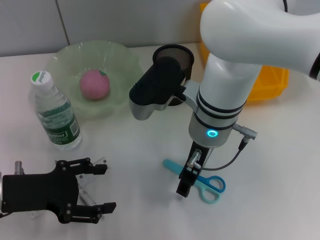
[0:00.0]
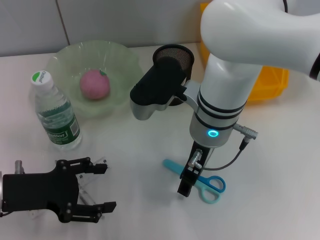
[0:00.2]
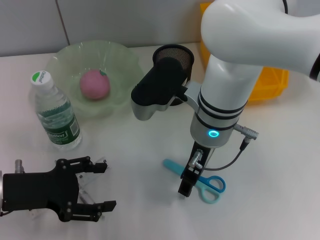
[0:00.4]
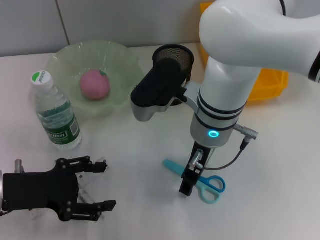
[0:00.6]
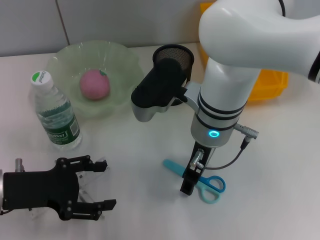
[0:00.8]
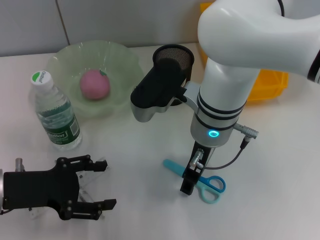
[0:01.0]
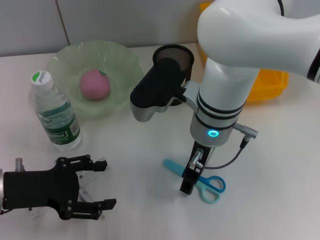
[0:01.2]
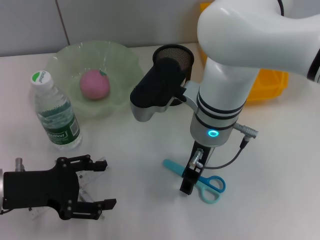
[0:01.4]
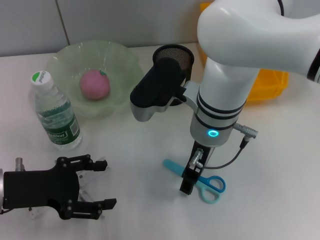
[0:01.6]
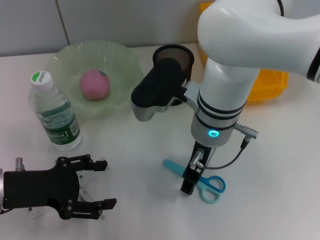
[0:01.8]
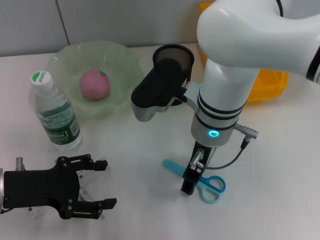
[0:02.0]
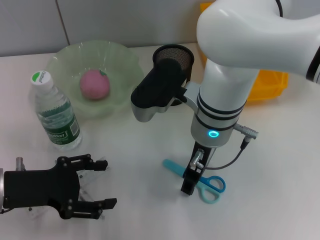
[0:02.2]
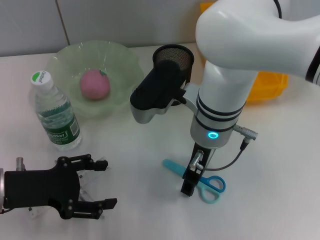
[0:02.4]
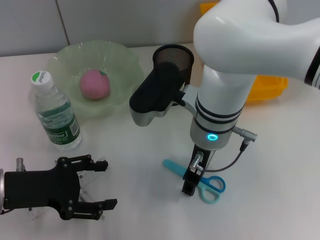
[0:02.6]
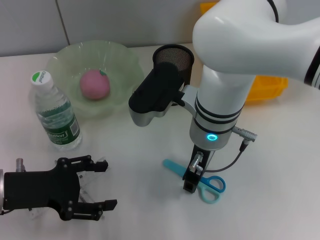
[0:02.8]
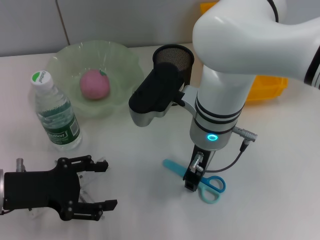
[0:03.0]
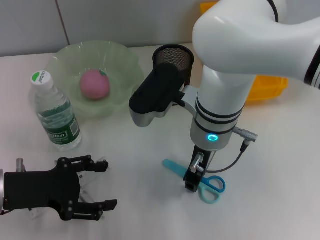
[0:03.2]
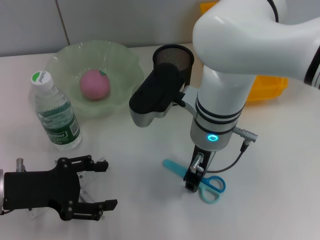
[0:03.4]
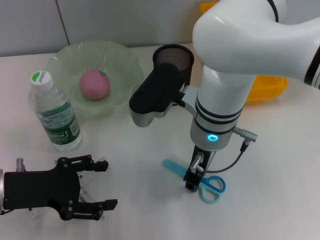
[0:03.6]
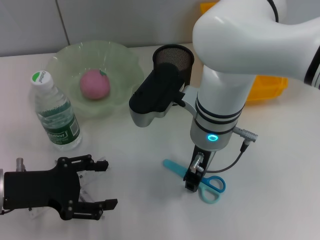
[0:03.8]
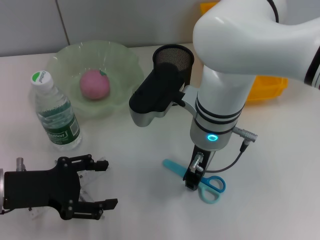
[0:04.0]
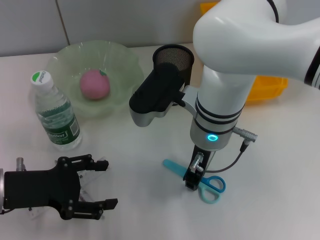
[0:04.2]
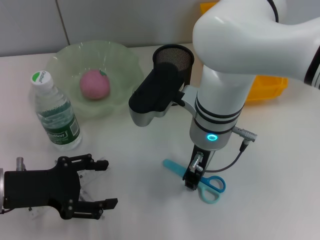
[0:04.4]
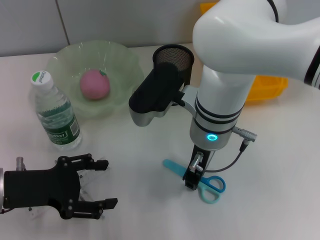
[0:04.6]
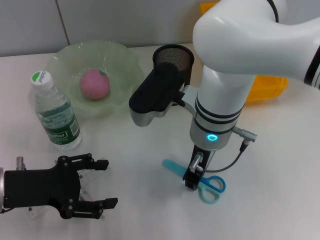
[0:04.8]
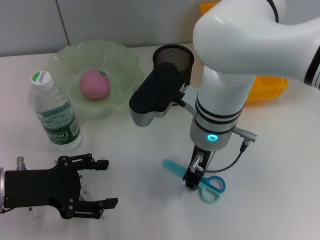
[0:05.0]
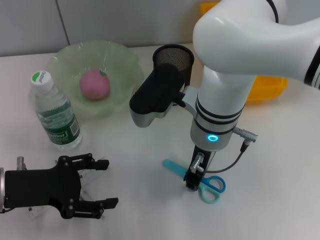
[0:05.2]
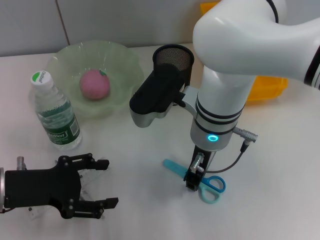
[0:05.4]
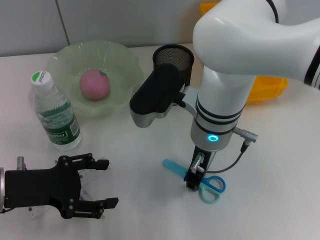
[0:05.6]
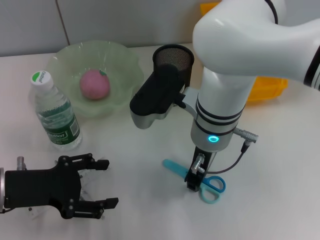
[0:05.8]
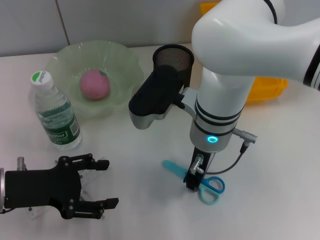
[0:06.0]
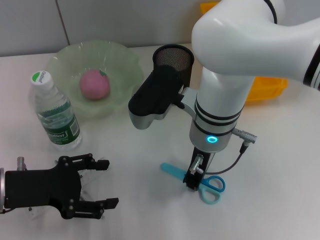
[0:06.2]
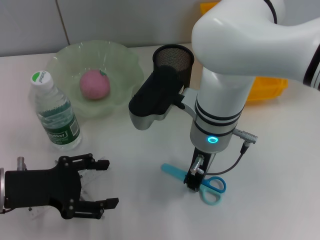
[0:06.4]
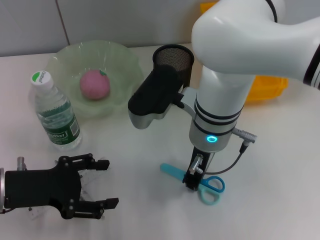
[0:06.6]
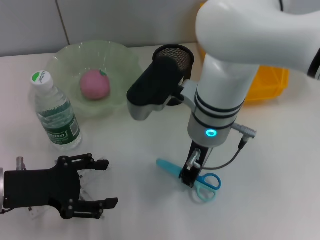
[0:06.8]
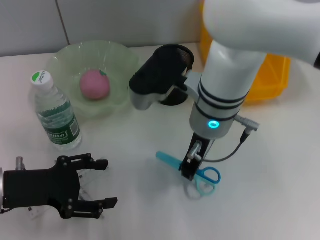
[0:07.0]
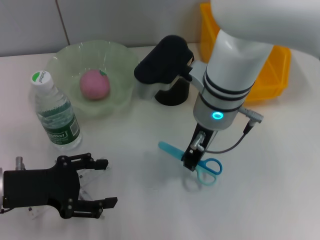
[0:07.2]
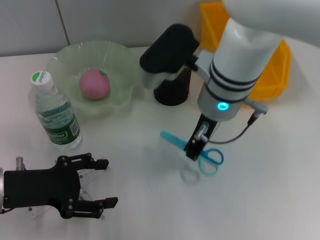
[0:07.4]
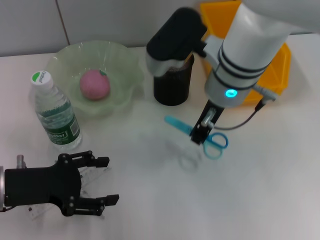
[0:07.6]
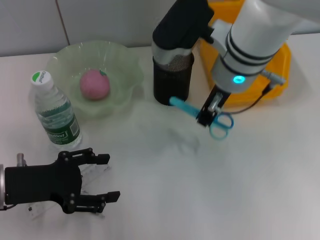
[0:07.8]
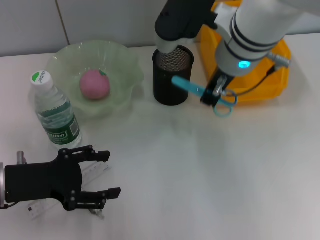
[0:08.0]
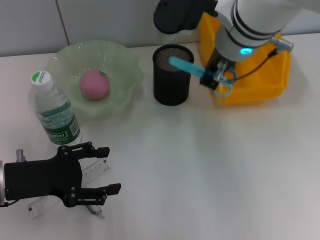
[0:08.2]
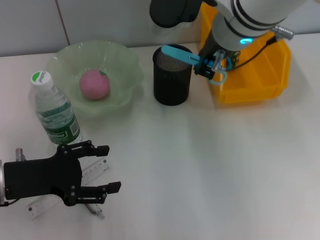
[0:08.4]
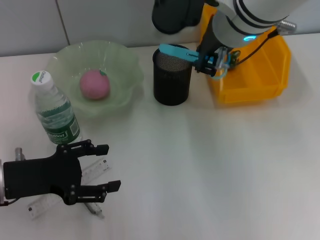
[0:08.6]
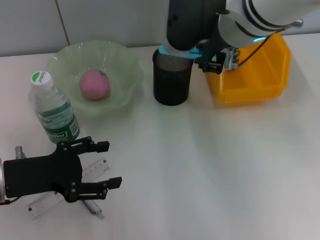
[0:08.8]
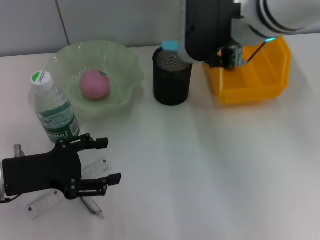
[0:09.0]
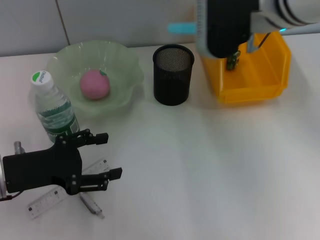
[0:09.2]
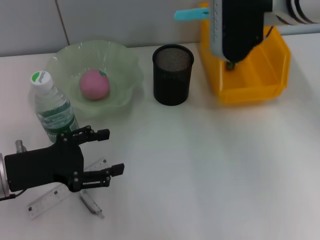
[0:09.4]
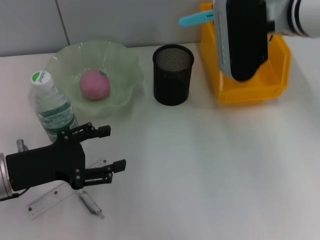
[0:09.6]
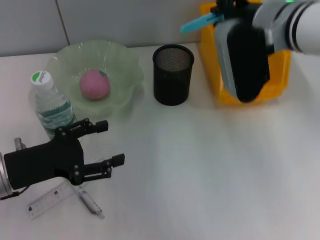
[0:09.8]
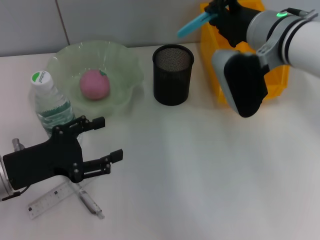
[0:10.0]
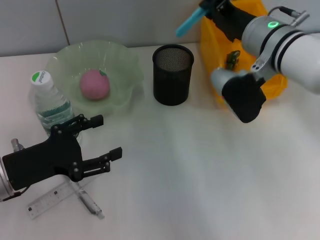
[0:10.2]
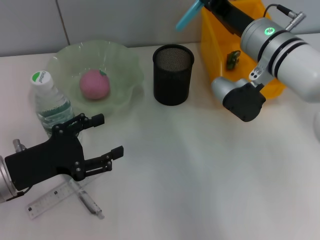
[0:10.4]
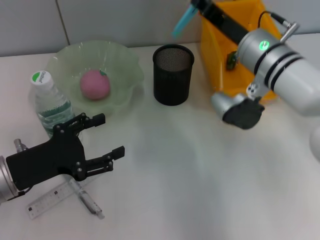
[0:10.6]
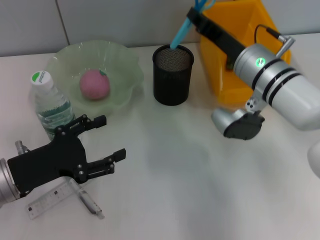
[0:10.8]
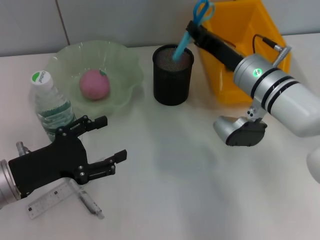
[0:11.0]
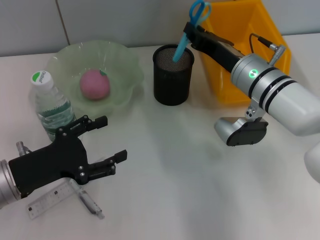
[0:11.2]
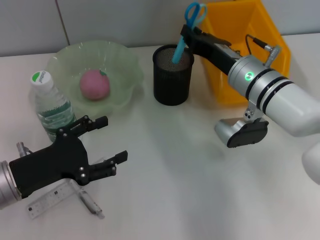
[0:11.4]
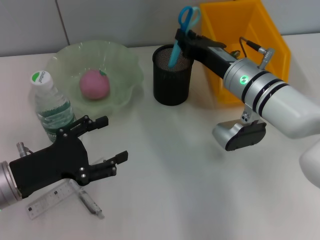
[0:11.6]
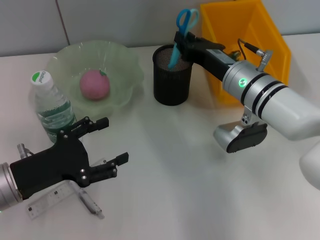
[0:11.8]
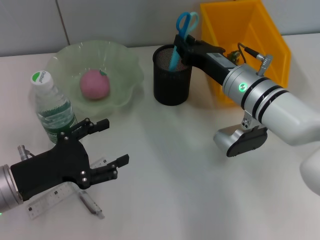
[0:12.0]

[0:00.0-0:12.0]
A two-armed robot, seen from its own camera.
Step, 0:00.0 to 0:06.4: Grab the blue scissors with the right hand.
0:00.0 to 0:06.0: The two grippers keep their place.
0:06.0 to 0:07.6: The right gripper travels upward by about 5 cm.
0:07.6 to 0:09.0: The right gripper goes about 5 cm upward.
0:09.0 to 0:10.4: The right gripper moves downward and to the right, some 10 cm.
0:10.4 to 0:12.0: The right gripper shifts approximately 5 cm downward.

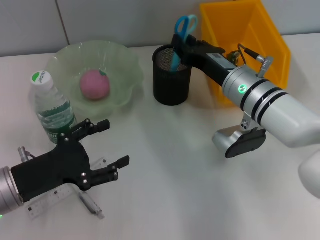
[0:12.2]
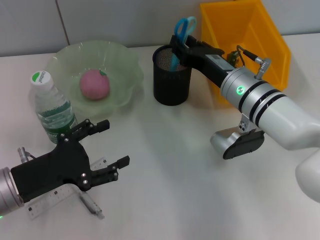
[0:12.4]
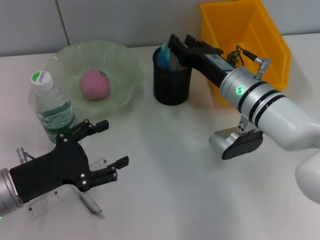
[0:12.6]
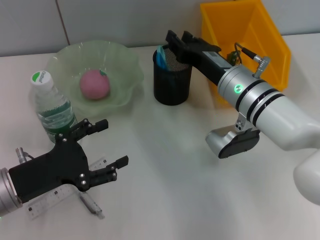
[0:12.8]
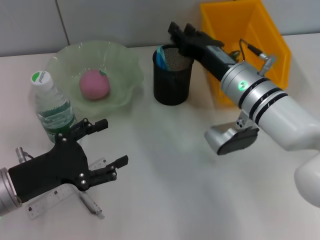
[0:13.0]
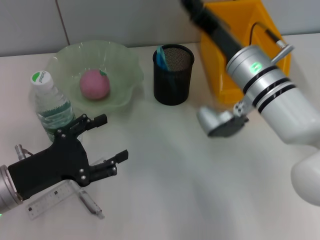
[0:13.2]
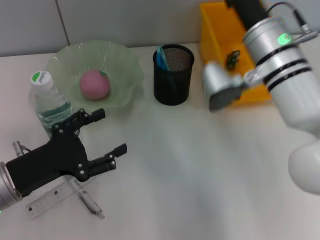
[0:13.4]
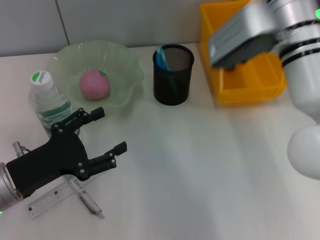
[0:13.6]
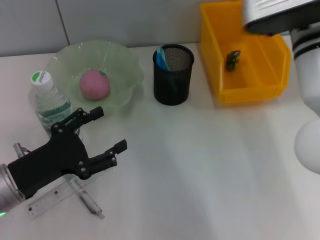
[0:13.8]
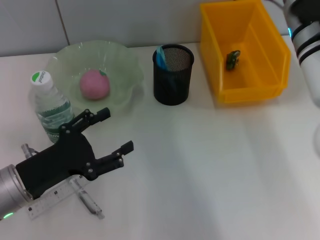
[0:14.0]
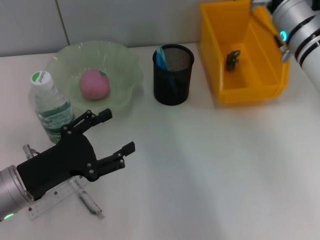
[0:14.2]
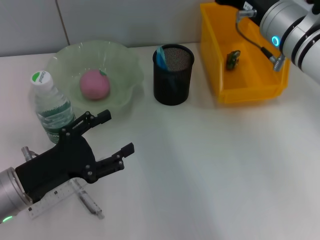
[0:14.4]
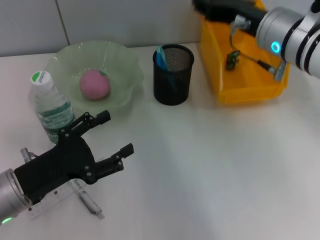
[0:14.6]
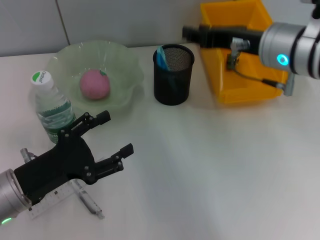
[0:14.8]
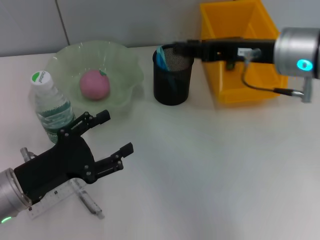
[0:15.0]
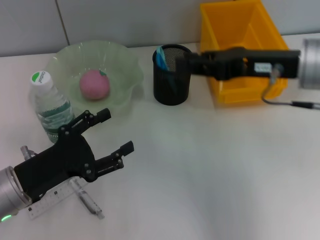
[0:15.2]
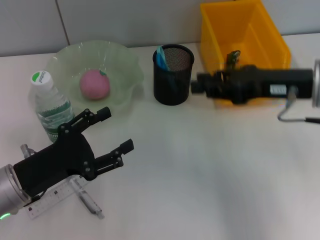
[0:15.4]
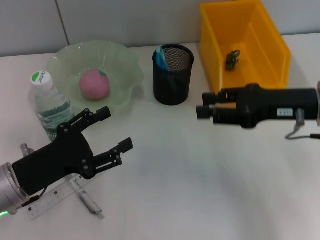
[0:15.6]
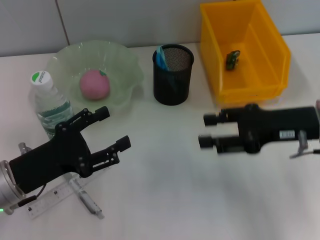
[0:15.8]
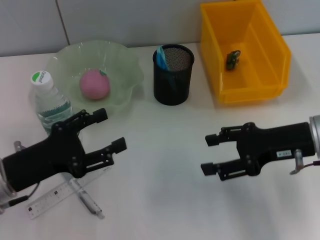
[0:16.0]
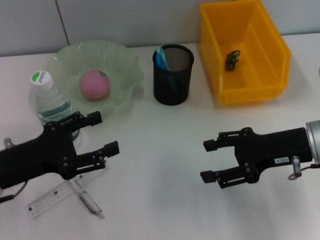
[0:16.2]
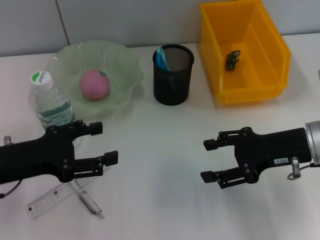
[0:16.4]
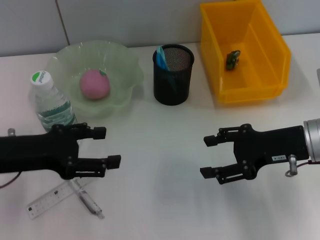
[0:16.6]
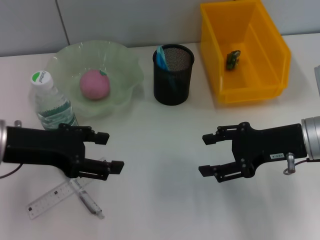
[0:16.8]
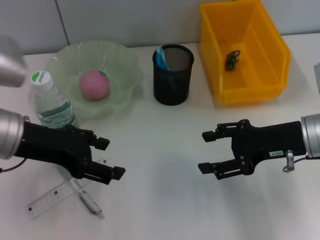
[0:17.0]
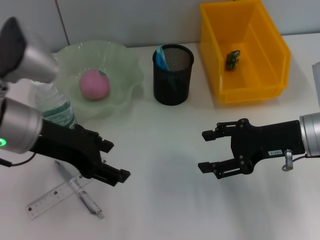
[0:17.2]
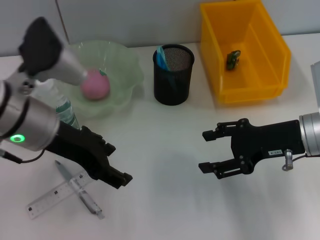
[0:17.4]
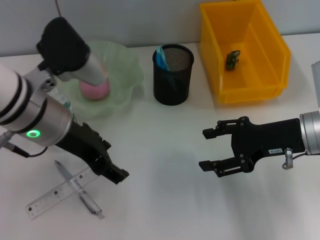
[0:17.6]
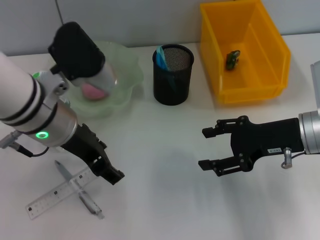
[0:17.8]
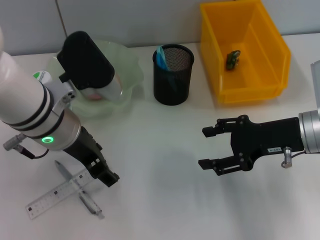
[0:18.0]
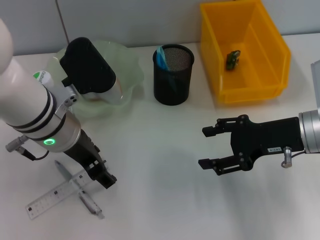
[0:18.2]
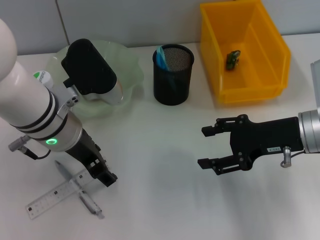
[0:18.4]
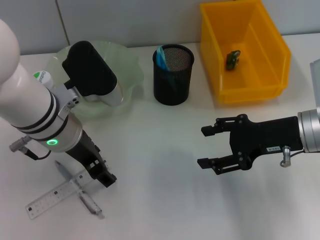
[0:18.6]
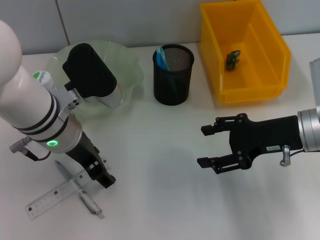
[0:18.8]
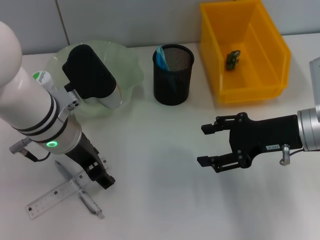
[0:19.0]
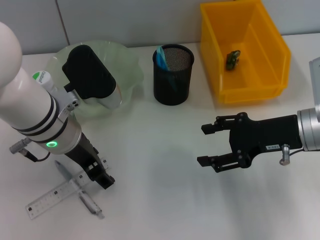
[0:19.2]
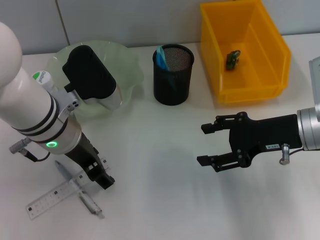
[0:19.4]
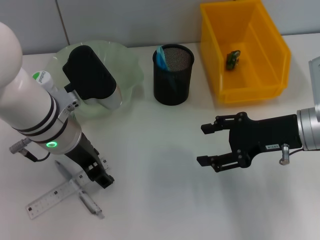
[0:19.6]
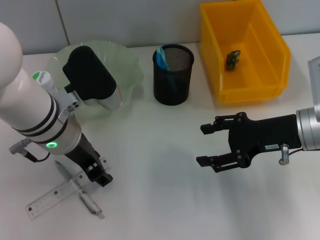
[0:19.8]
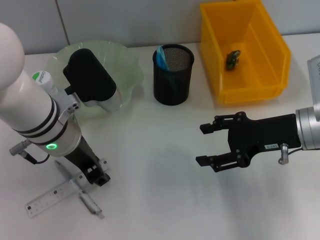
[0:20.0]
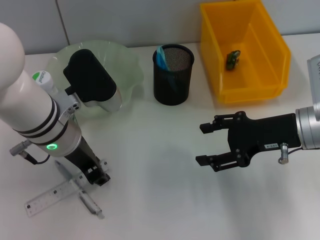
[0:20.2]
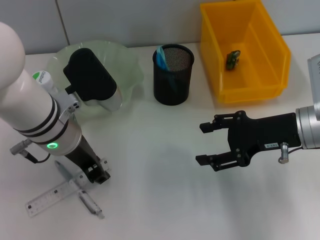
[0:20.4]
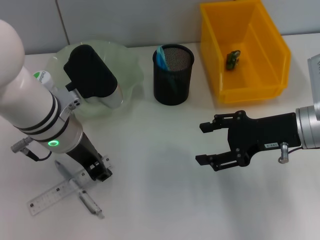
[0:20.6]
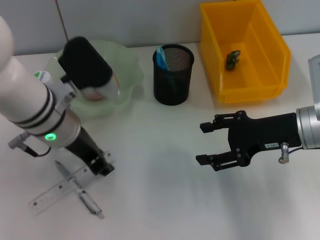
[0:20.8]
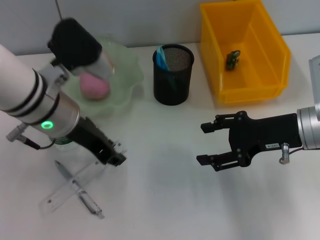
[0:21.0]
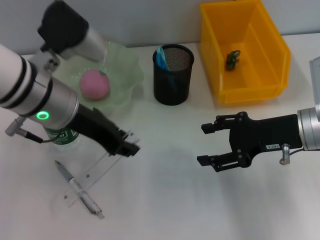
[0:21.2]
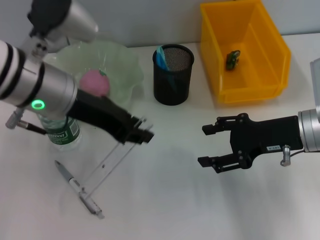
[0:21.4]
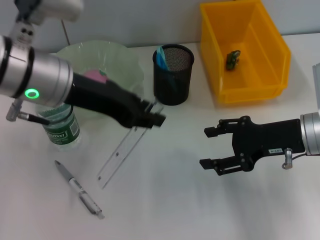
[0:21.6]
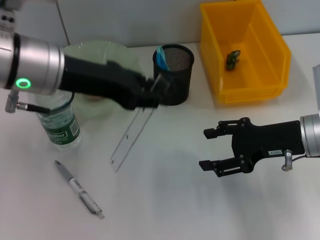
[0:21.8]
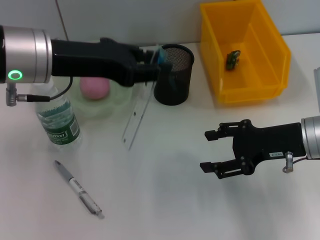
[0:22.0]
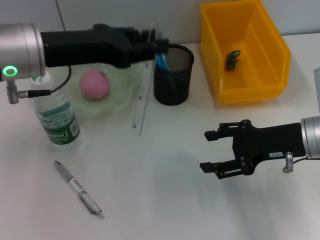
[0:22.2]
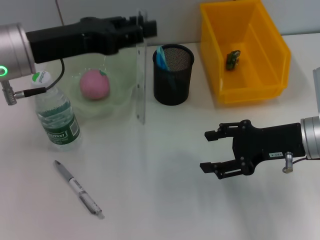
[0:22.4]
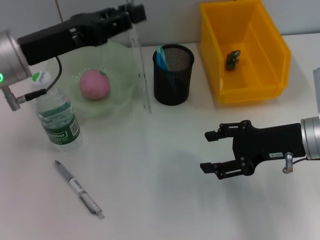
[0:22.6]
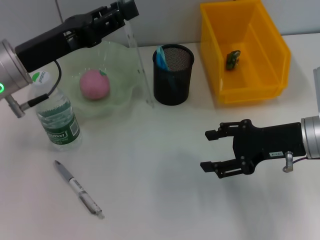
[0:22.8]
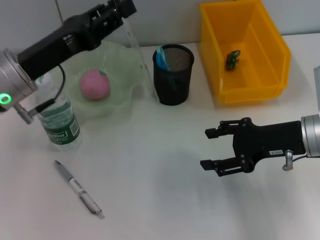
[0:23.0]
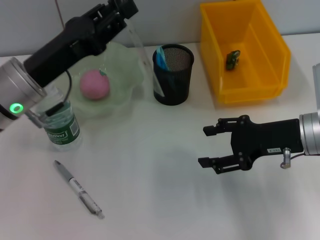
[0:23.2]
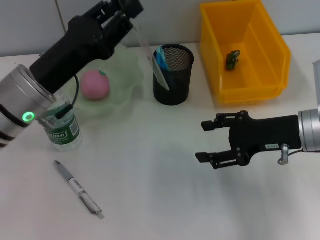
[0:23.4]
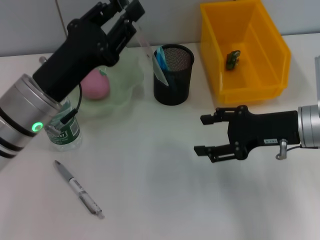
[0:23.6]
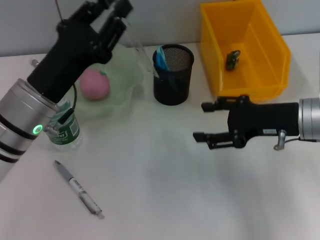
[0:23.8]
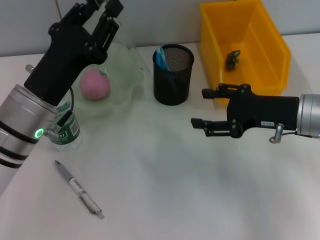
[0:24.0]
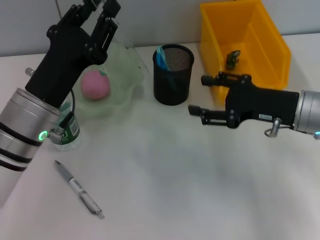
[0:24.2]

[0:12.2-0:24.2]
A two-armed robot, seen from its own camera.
Step, 0:13.0 to 0:20.2: Grab the ruler with the left hand.
0:12.2 to 0:13.8: The right gripper goes roughly 10 cm upward.
0:13.8 to 0:15.2: The right gripper ends up about 5 cm from where it was.
0:15.2 to 0:16.6: The right gripper travels downward by roughly 10 cm, and opens its fingers. Meanwhile the left gripper goes about 10 cm upward.
0:16.6 to 0:18.2: The left gripper goes roughly 10 cm to the right.
0:18.2 to 0:19.8: The grippers move only a little.
0:19.8 to 0:21.2: The left gripper shifts some 5 cm upward, and closes its fingers.
0:21.2 to 0:22.6: The left gripper travels to the left by about 5 cm.
0:22.6 to 0:24.2: The left gripper goes some 10 cm downward.
